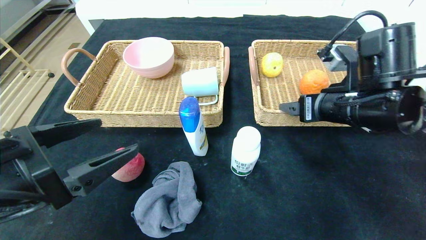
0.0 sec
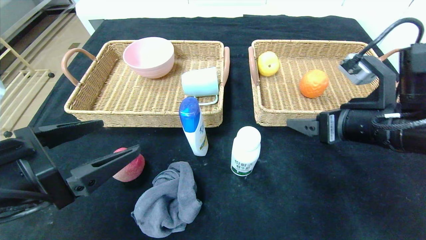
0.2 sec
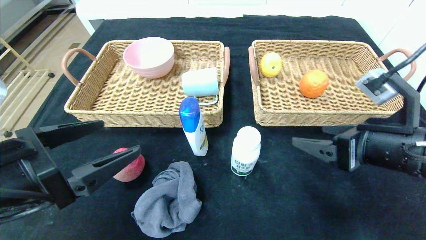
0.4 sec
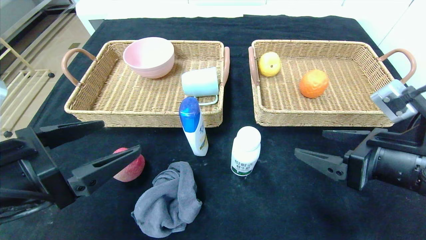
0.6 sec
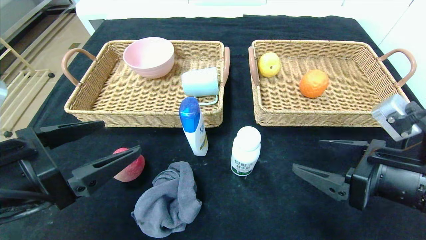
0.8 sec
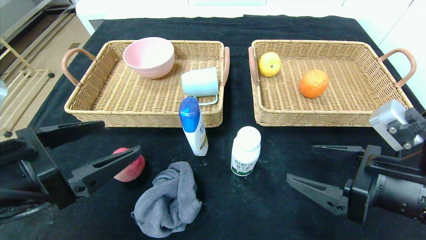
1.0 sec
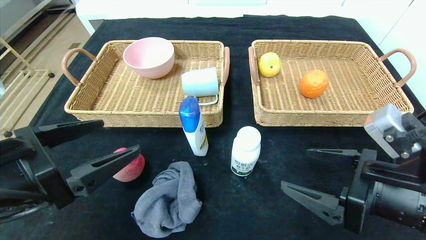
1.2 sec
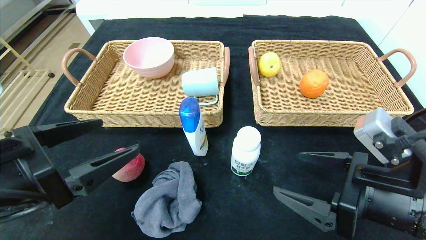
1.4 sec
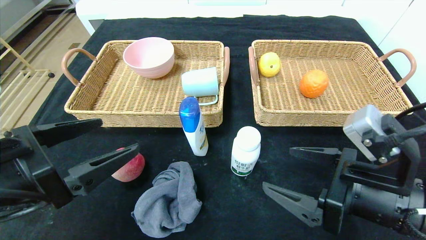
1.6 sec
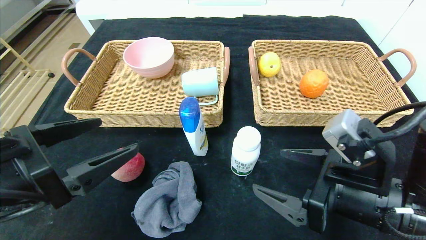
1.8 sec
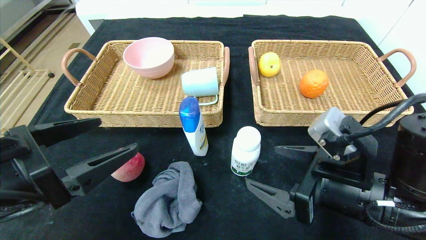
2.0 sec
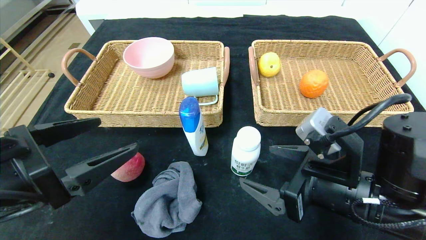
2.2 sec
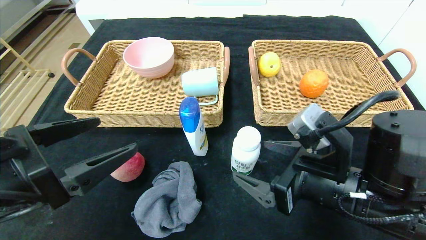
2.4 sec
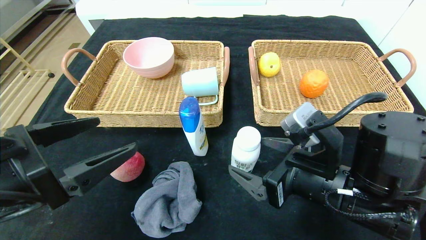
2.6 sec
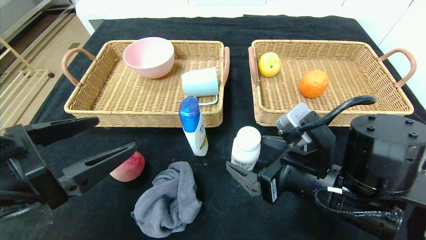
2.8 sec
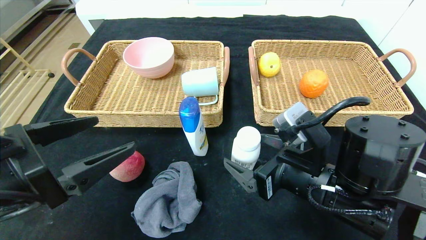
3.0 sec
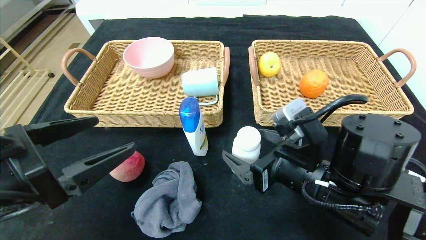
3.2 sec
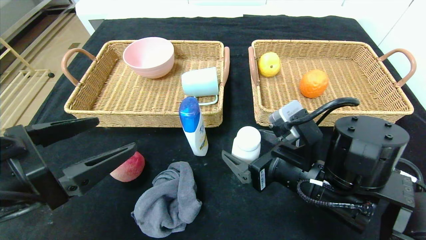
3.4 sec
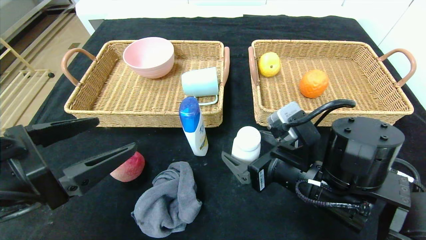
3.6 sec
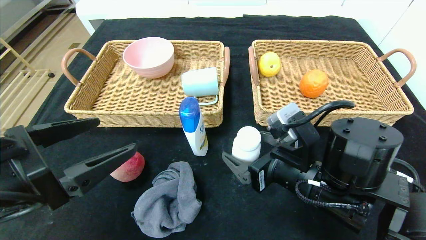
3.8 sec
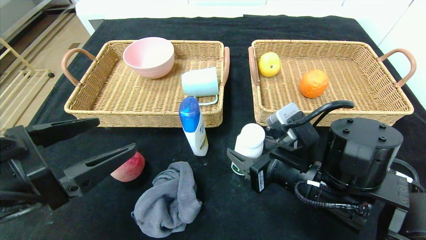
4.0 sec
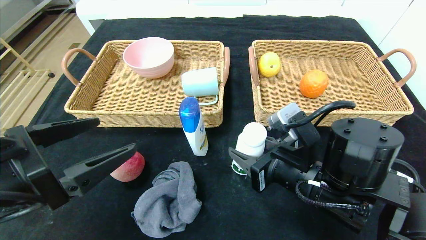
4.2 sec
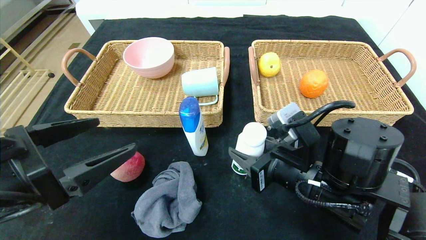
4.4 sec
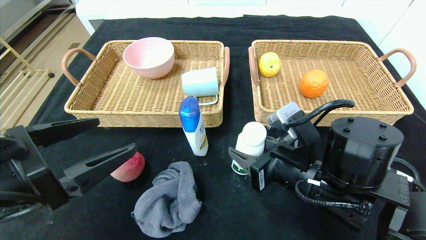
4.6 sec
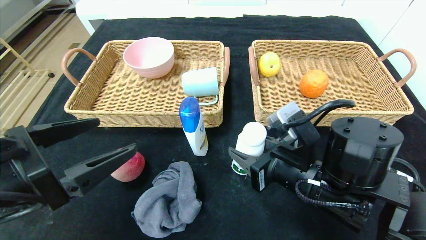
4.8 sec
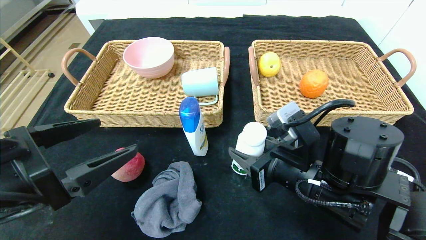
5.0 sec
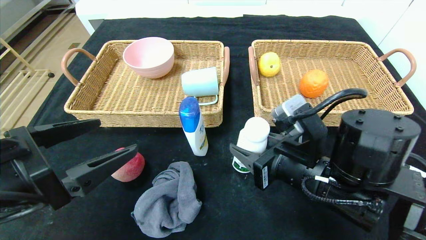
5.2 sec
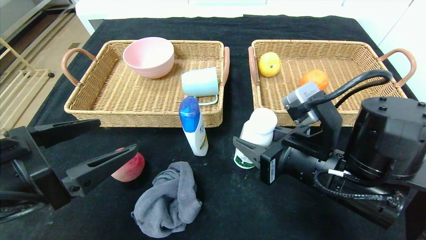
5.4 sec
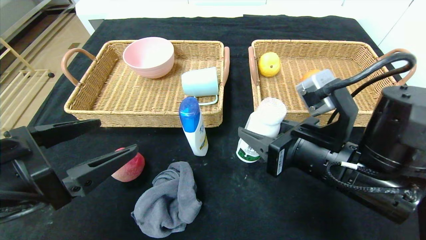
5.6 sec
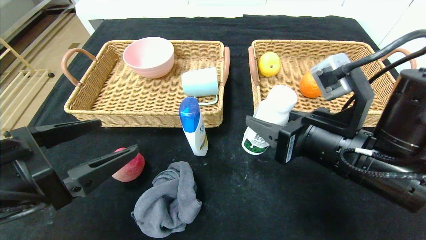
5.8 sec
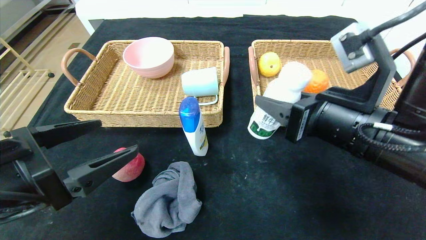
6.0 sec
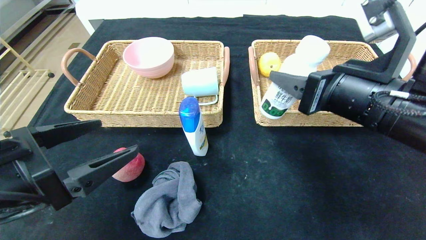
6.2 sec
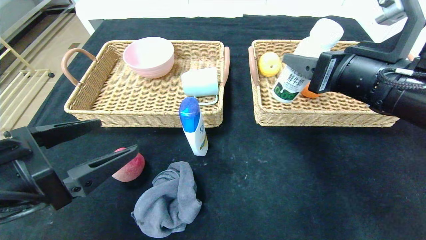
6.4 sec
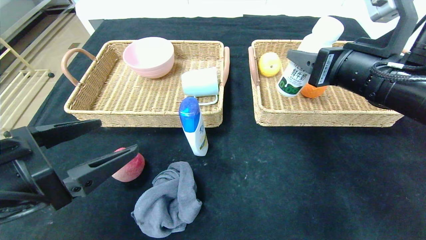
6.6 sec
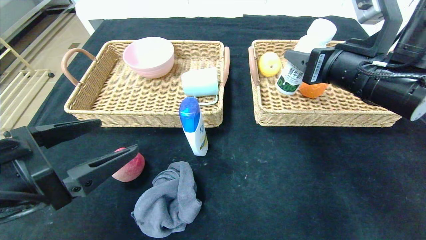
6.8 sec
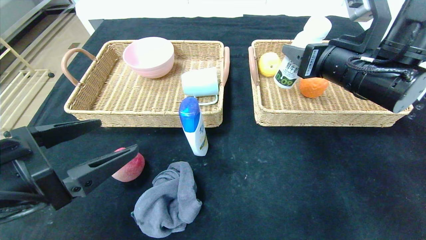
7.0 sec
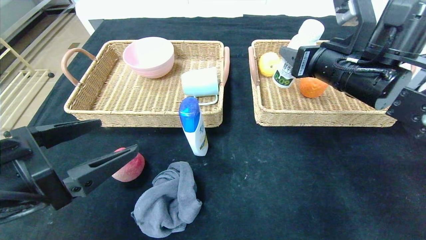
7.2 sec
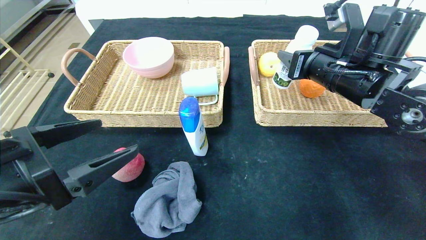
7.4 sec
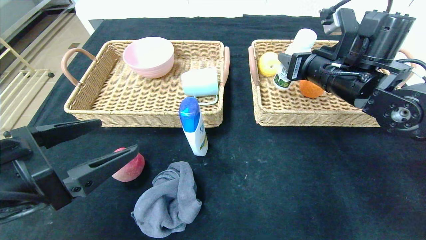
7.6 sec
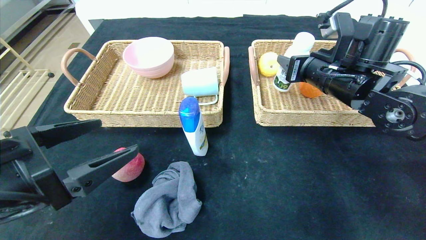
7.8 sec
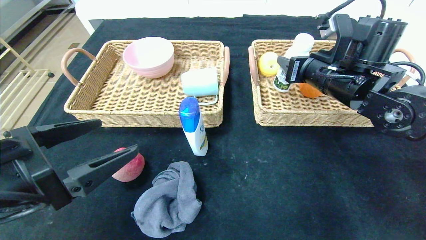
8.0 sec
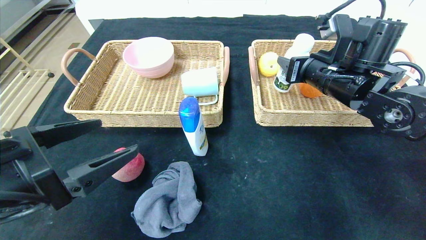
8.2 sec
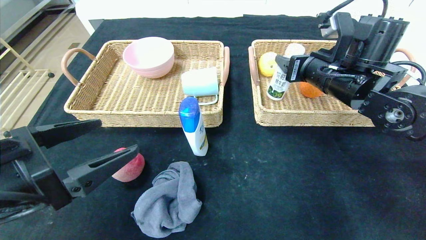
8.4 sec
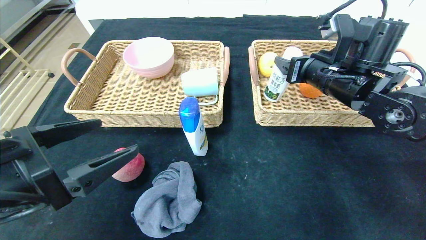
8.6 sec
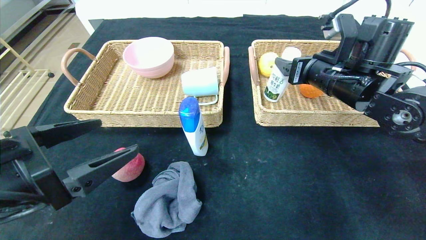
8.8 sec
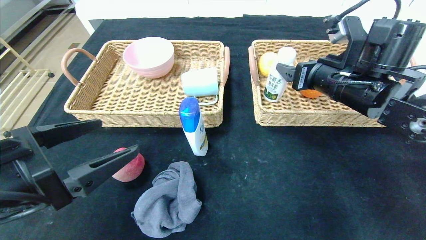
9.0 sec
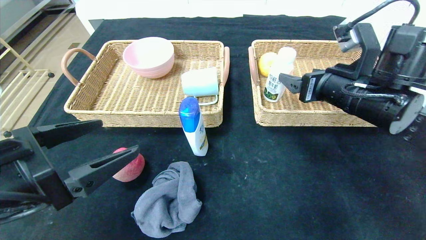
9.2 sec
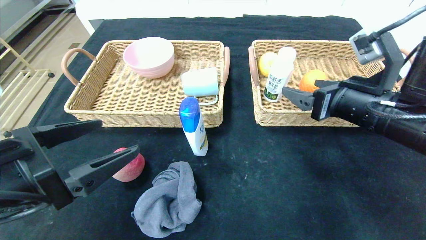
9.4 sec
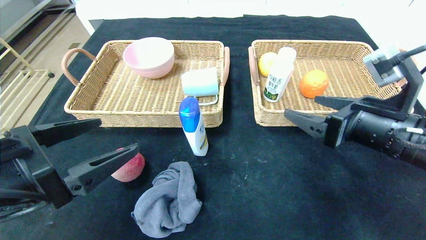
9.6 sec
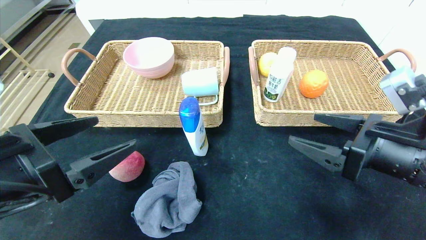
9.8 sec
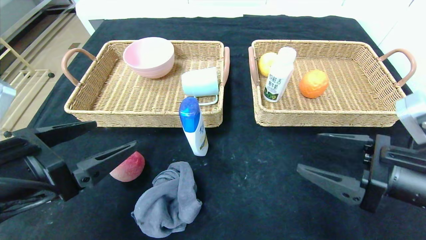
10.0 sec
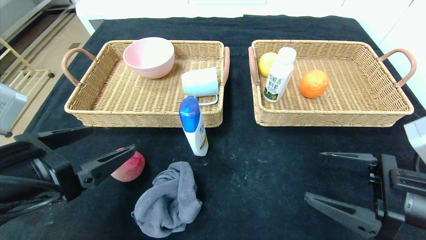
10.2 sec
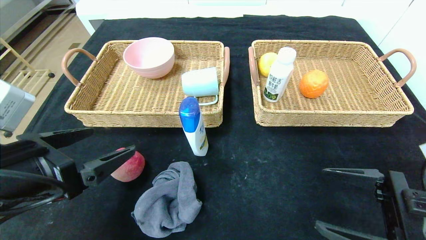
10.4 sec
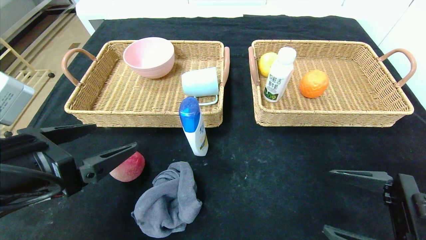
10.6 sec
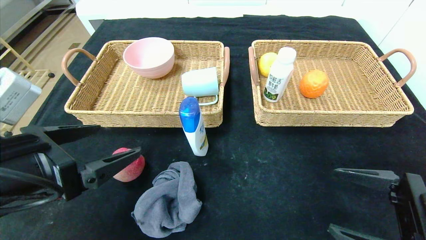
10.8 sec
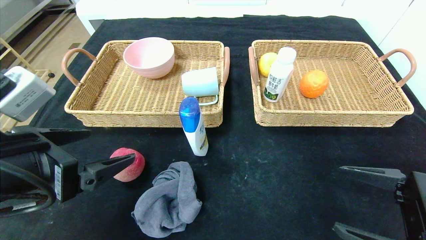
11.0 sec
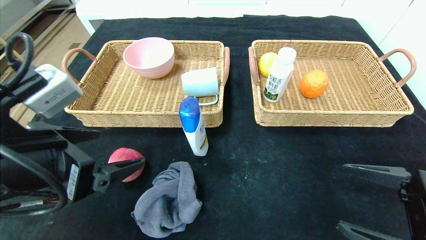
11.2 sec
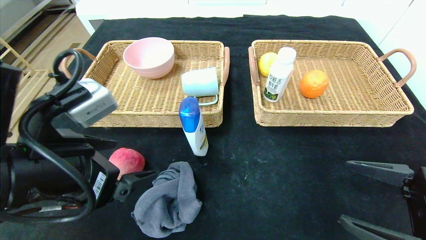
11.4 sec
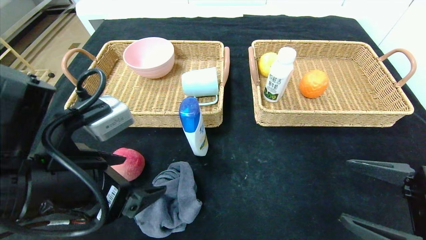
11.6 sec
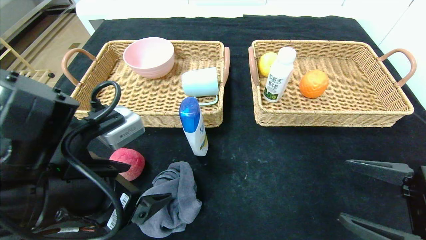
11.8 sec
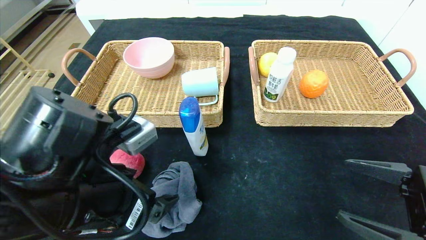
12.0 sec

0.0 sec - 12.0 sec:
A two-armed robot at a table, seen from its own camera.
Step, 0.0 sec - 8.6 sec: Grasp the yogurt and put it in the right basket.
0.0 sec - 1.6 sec: The right gripper travels backward and downward by roughly 15 cm.
1.6 sec - 3.0 sec: The right gripper goes approximately 5 cm to the left.
3.0 sec - 4.4 sec: The right gripper closes its fingers.
4.4 sec - 6.0 sec: The right gripper goes some 10 cm upward.
6.0 sec - 7.6 sec: The right gripper is displaced forward by about 15 cm.
7.6 sec - 9.0 sec: The right gripper opens its fingers.
9.0 sec - 10.4 sec: The right gripper shifts some 20 cm backward and downward.
10.4 sec - 12.0 sec: The left gripper goes approximately 10 cm to the right.

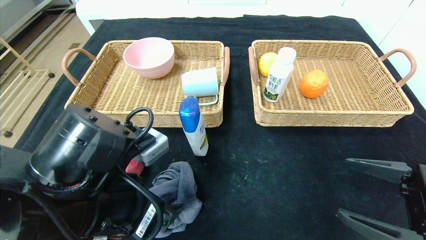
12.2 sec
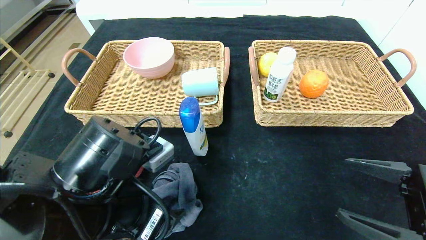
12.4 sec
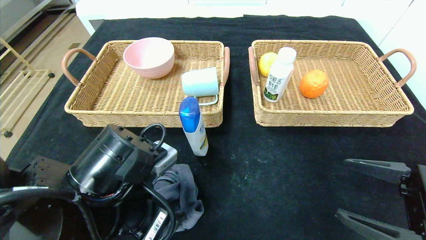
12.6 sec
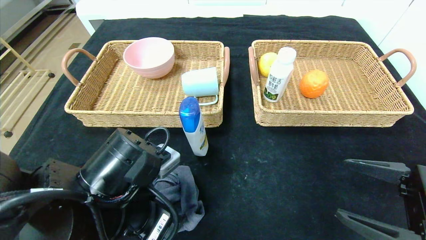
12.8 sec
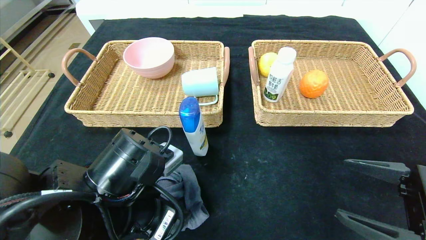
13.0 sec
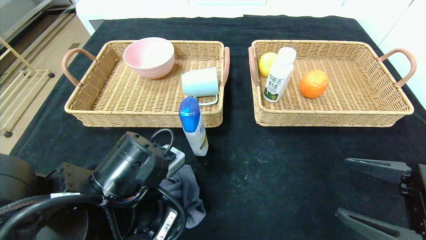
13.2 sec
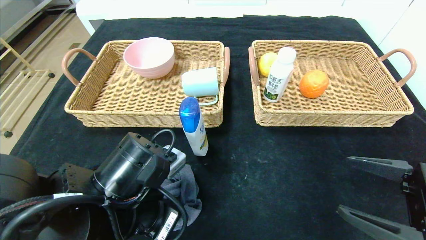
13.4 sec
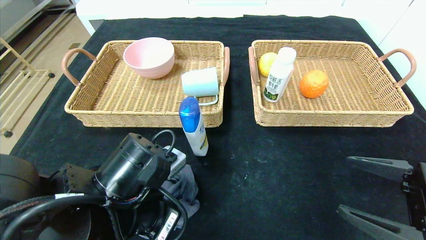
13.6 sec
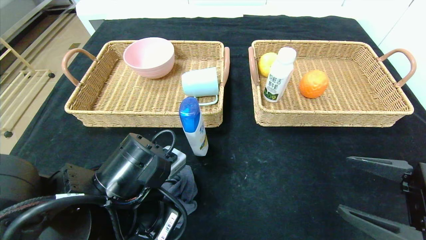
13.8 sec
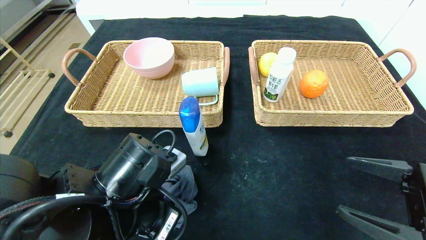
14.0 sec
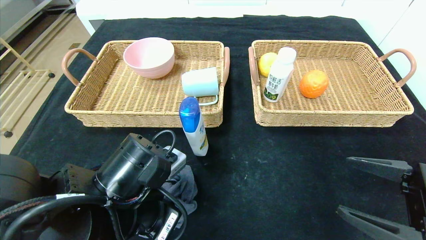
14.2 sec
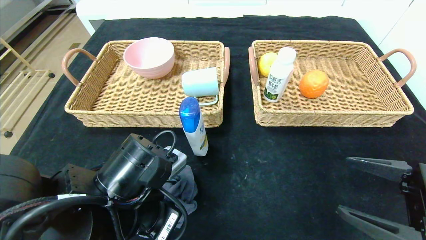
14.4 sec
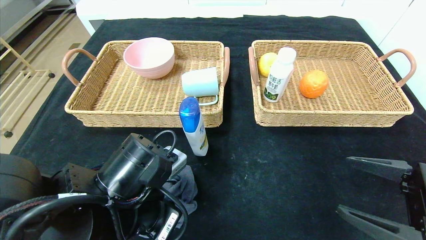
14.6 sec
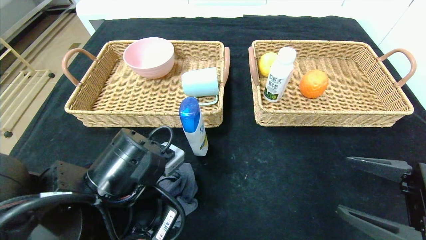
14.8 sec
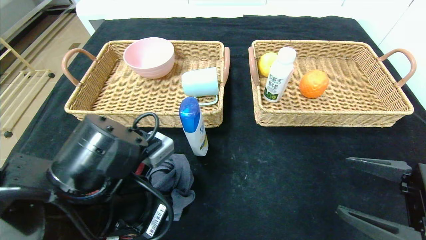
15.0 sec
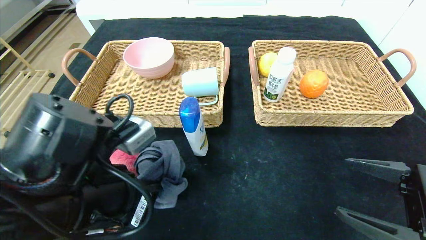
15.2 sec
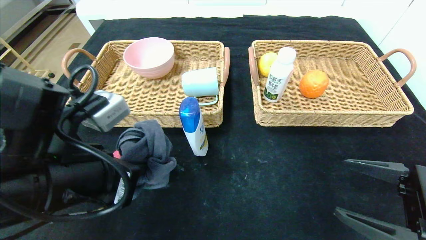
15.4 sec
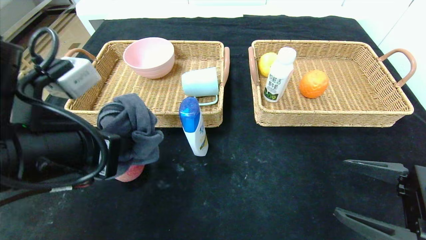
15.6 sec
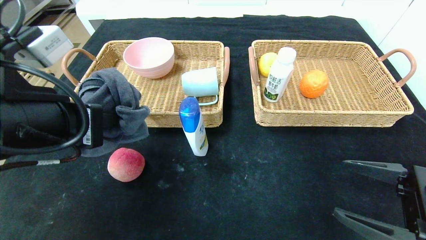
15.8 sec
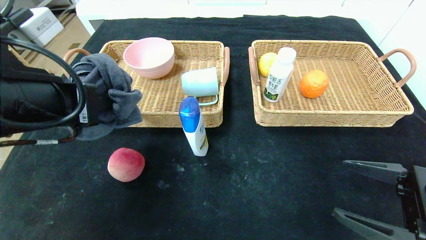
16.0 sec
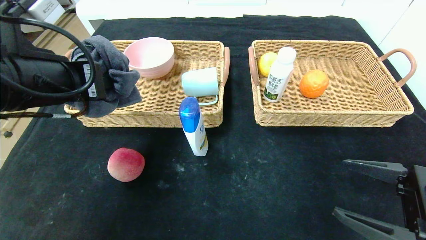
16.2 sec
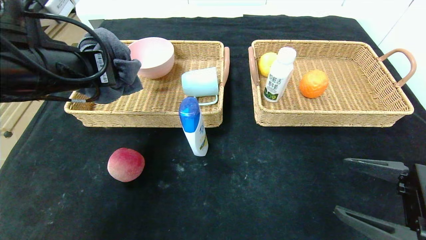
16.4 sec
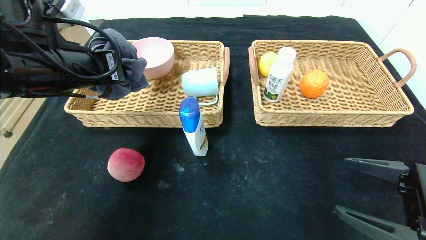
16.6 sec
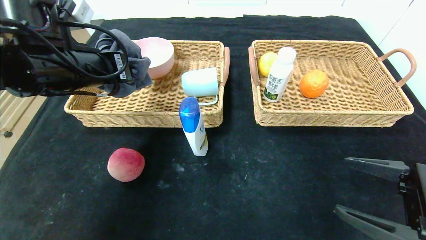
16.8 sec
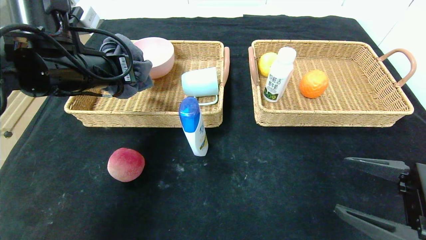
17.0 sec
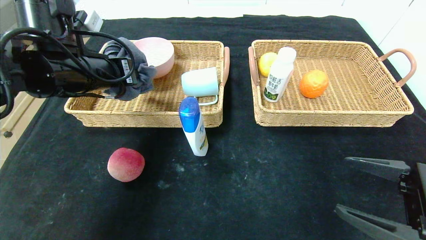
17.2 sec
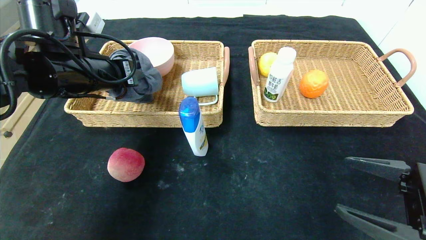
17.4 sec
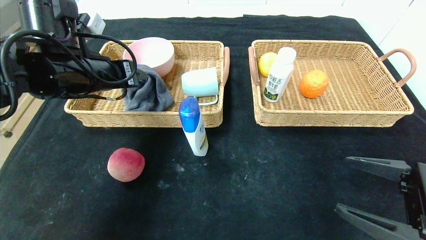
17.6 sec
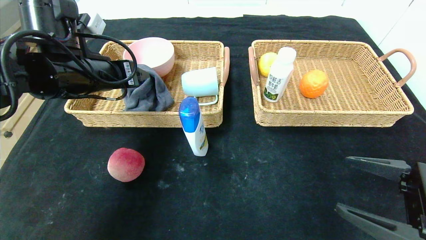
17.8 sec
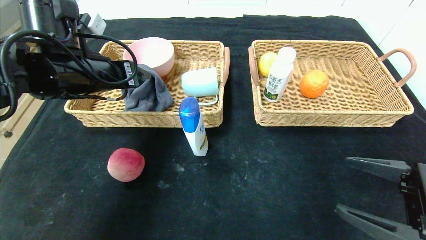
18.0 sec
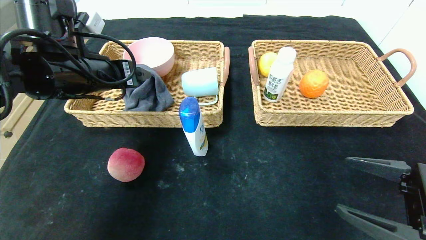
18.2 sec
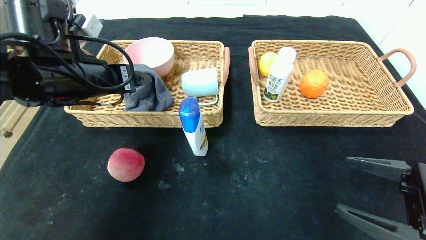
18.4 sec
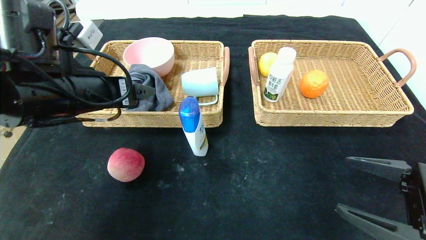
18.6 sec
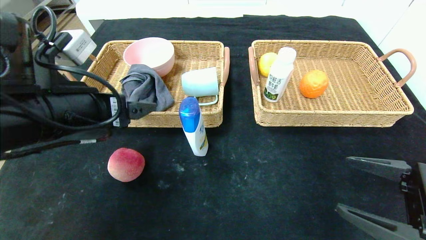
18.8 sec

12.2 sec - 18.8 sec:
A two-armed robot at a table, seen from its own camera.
Step, 12.2 sec - 17.8 sec: Grasp the gray towel and put it in the left basket.
12.2 sec - 13.8 sec: The left gripper closes its fingers.
13.8 sec - 15.4 sec: The left gripper shifts roughly 10 cm upward.
15.4 sec - 17.2 sec: The left gripper moves forward and upward, approximately 15 cm.
17.2 sec - 18.8 sec: The left gripper travels backward by approximately 10 cm, and opens up.
